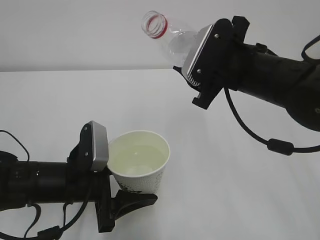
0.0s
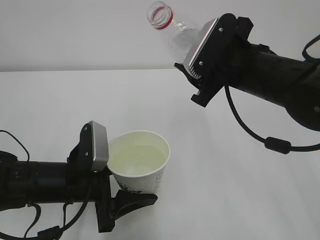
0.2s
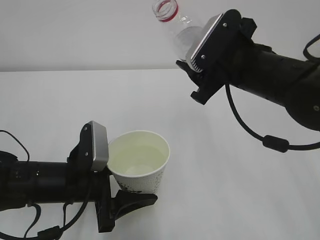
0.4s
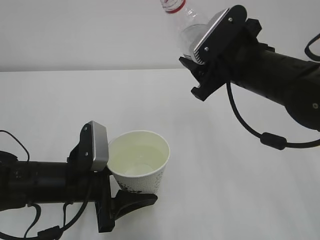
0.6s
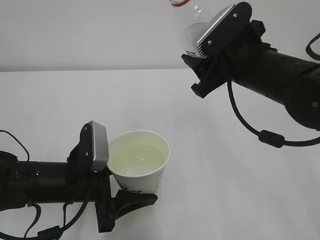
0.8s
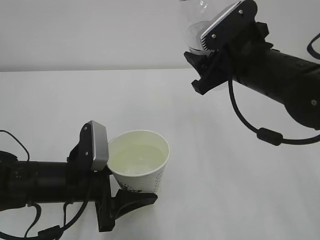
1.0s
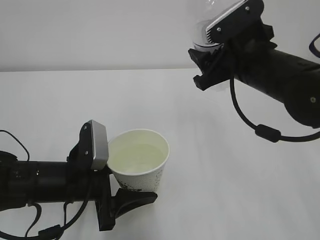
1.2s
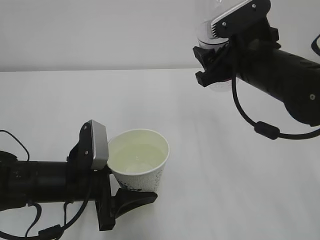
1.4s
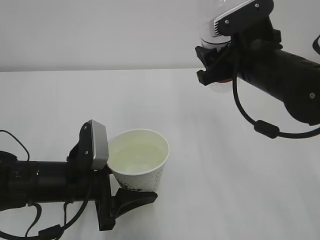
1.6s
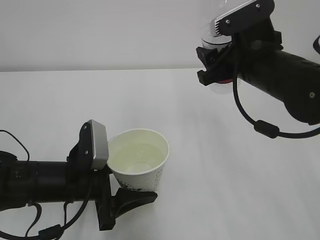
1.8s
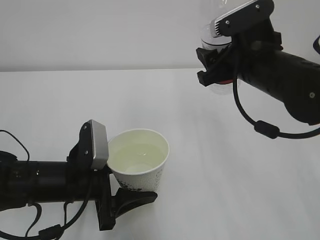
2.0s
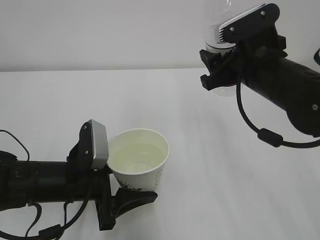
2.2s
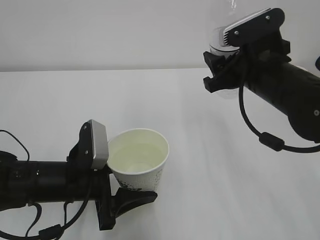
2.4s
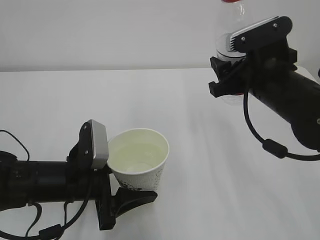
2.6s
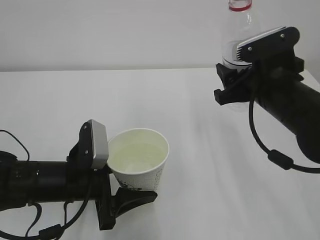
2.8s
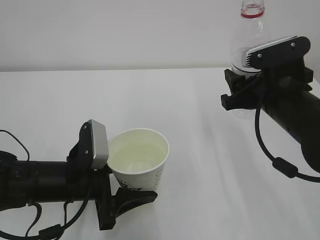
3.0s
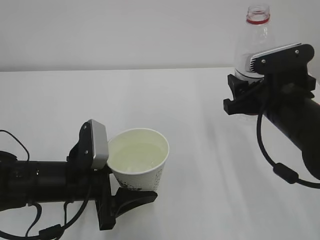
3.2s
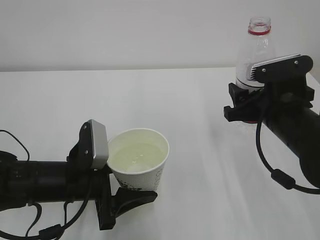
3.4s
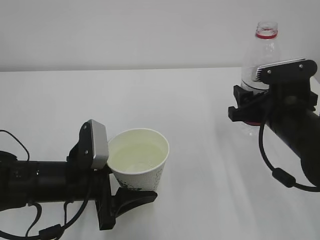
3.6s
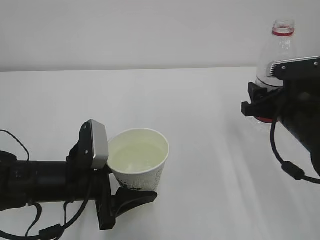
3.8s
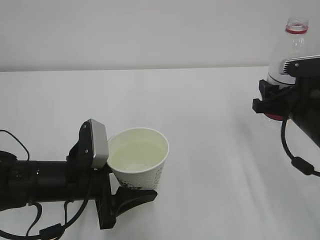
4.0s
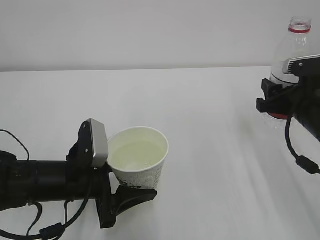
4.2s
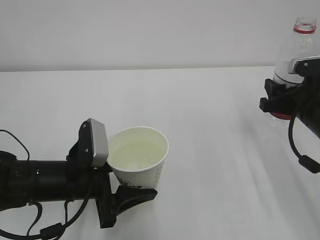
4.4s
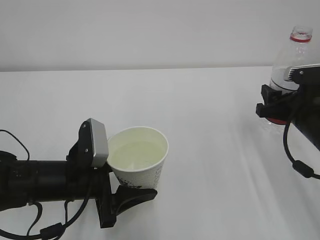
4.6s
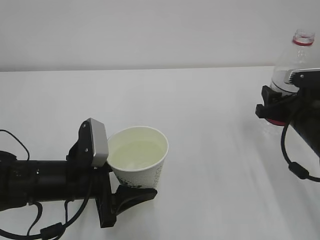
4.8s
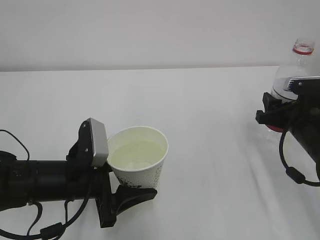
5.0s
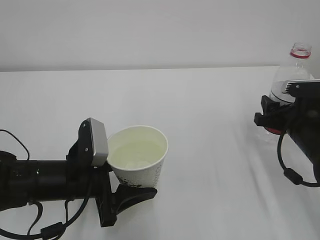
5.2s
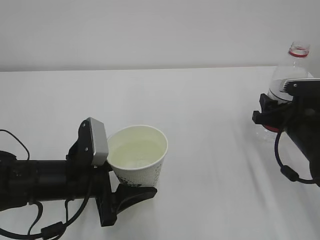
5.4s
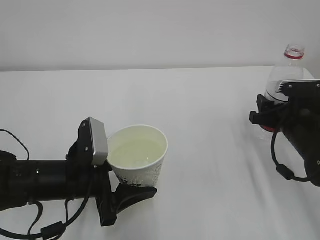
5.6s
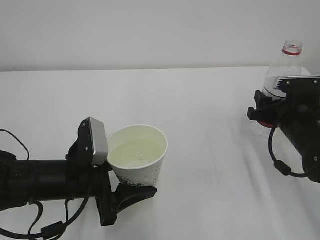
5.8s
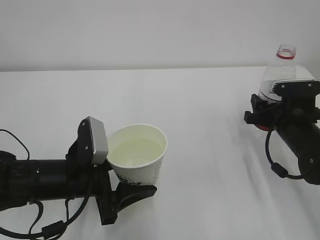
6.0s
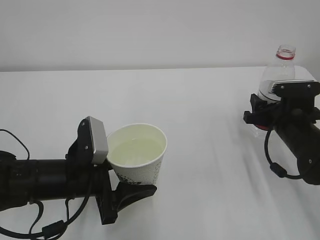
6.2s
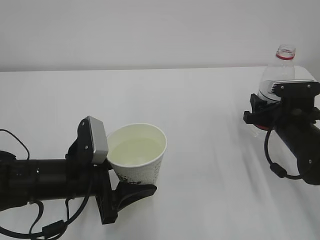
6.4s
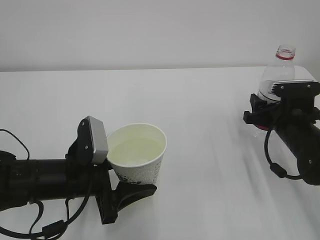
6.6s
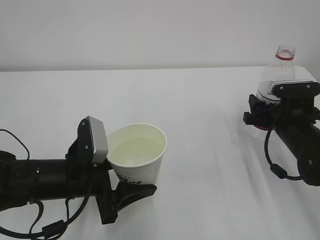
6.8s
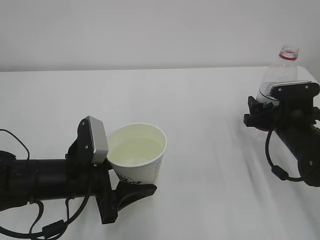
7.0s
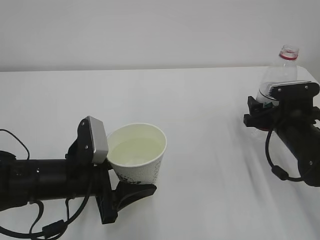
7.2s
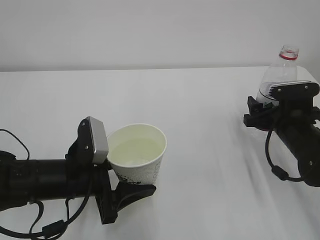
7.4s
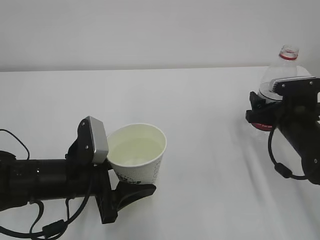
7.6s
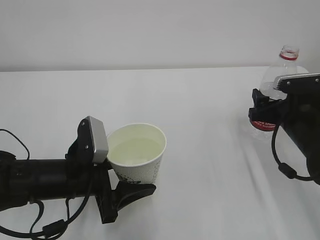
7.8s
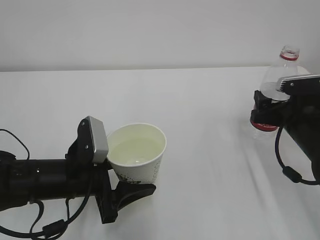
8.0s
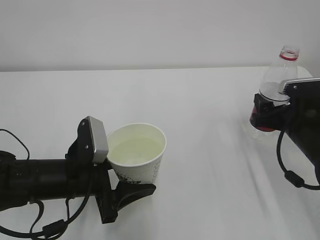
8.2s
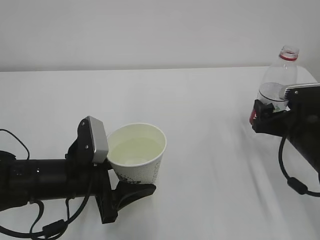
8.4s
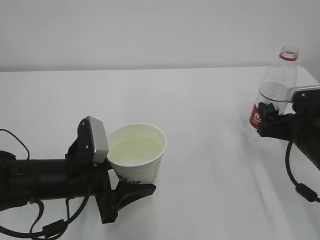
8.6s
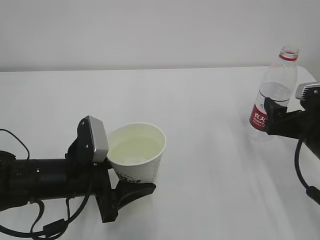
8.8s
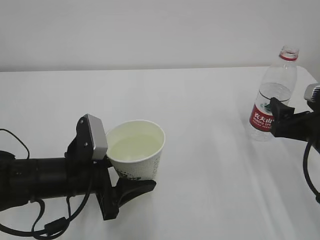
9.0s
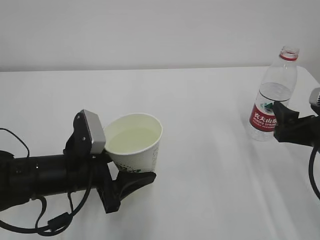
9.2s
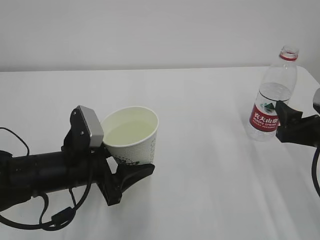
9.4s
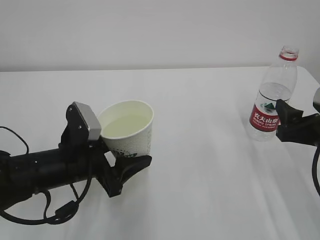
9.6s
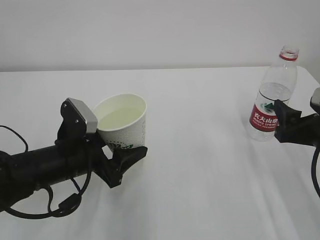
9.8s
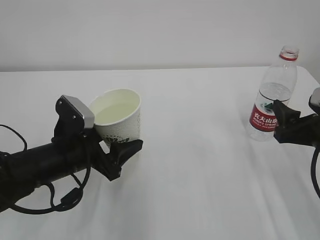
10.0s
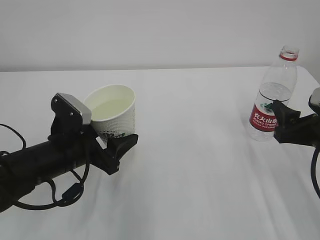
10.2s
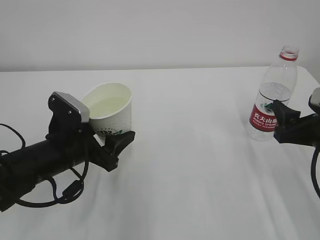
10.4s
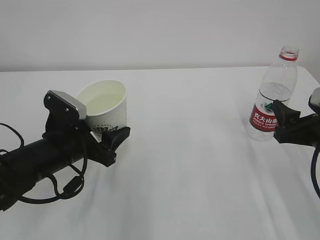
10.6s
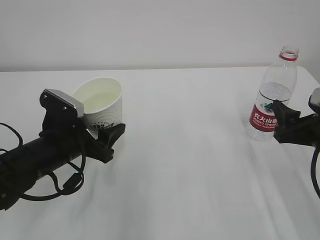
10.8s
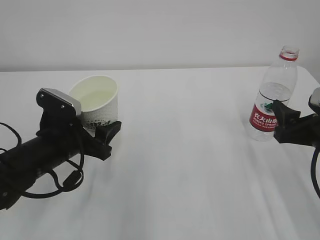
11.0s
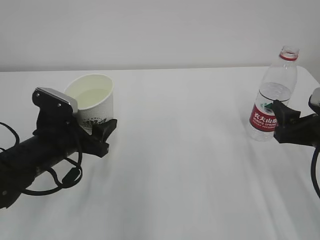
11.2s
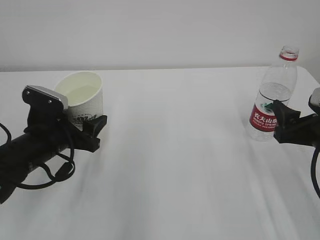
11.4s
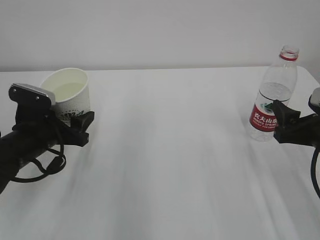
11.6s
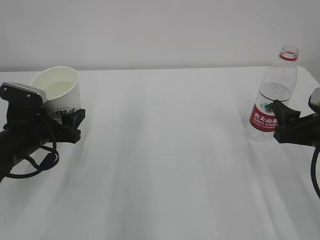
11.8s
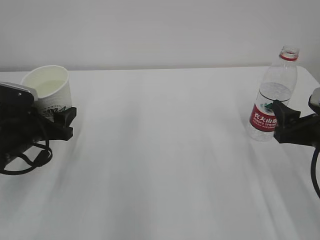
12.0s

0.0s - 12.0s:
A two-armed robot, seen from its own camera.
1.6s - 3.0s: The right gripper shifts by about 5 cm.
3.0s - 4.4s: The right gripper shifts approximately 5 cm to the right.
4.4s - 6.0s: The right gripper shifts approximately 5 cm downward.
6.0s - 7.6s: The right gripper opens up.
7.6s - 9.0s: The right gripper travels backward by roughly 5 cm.
10.4s - 12.0s: The left gripper moves to the left, roughly 10 cm.

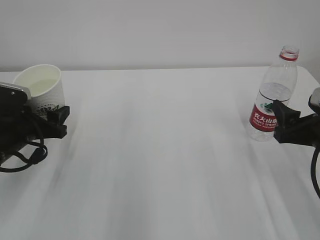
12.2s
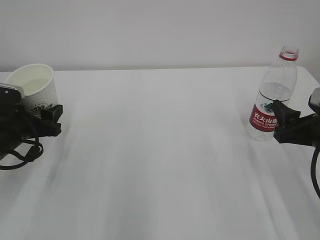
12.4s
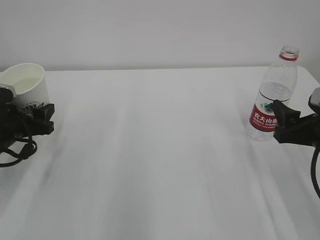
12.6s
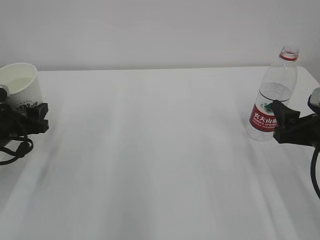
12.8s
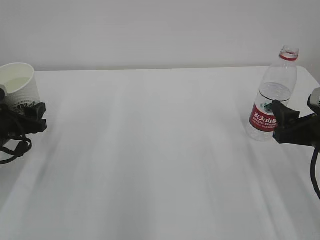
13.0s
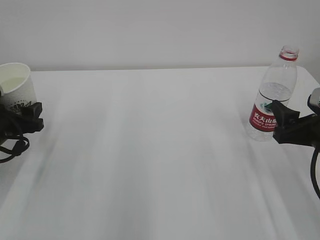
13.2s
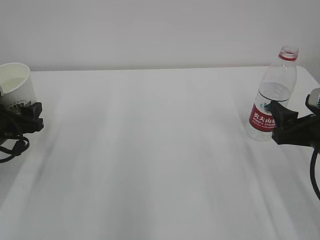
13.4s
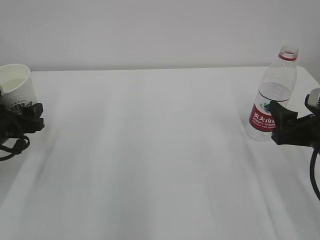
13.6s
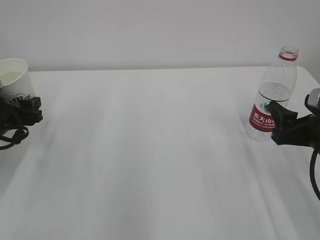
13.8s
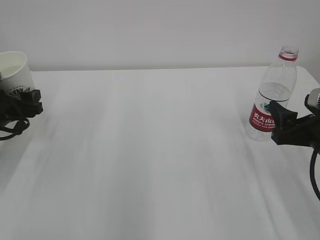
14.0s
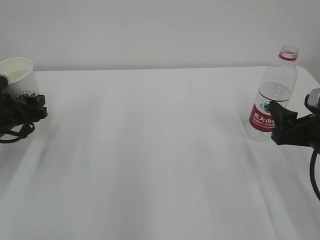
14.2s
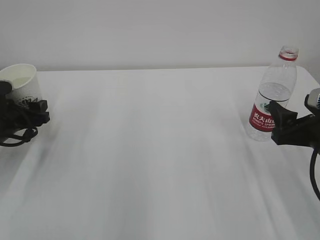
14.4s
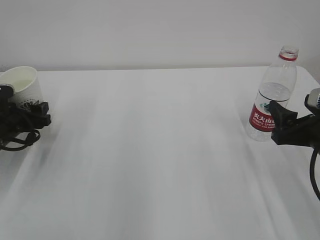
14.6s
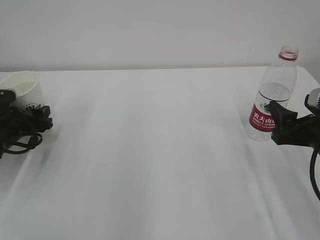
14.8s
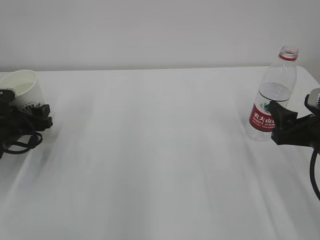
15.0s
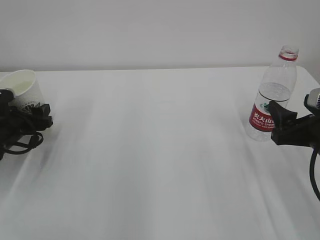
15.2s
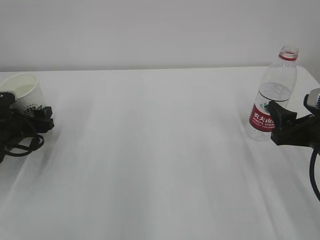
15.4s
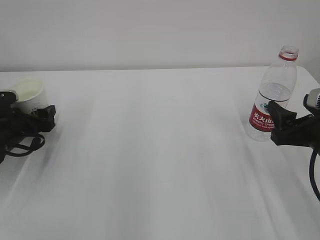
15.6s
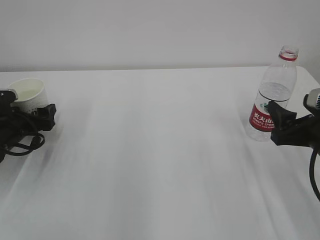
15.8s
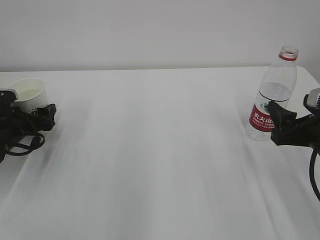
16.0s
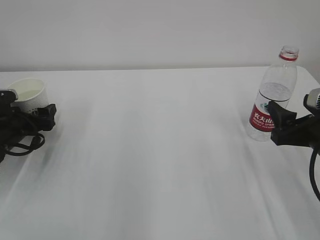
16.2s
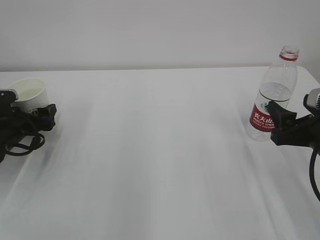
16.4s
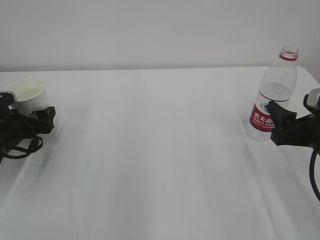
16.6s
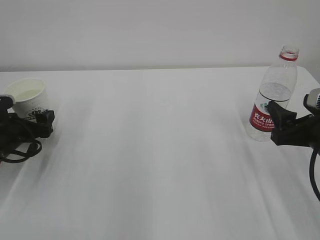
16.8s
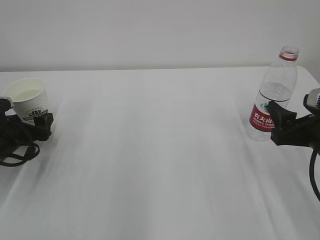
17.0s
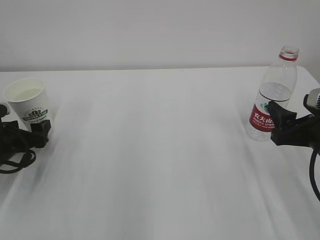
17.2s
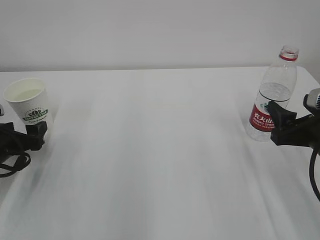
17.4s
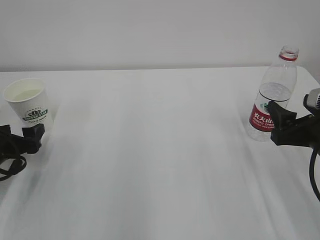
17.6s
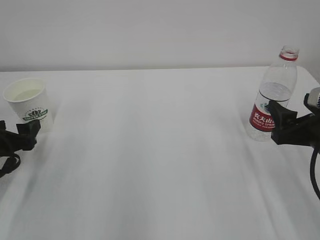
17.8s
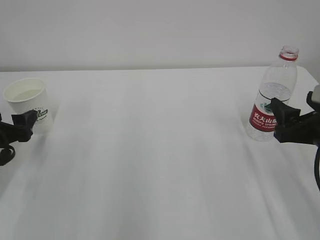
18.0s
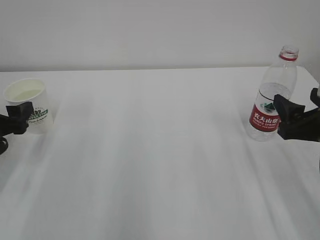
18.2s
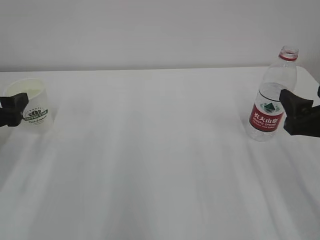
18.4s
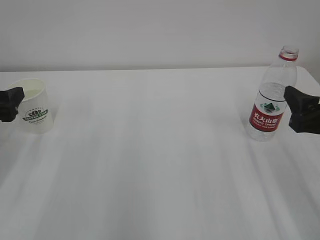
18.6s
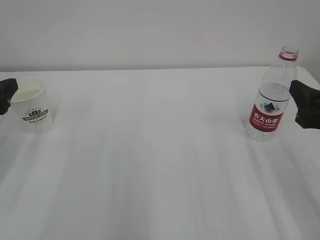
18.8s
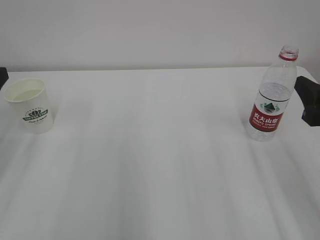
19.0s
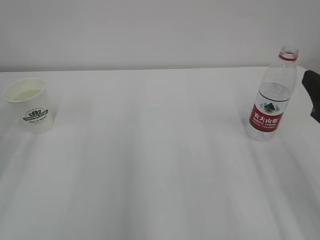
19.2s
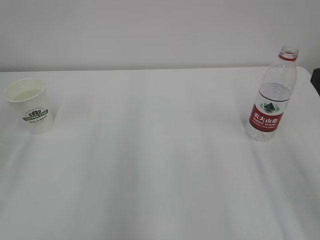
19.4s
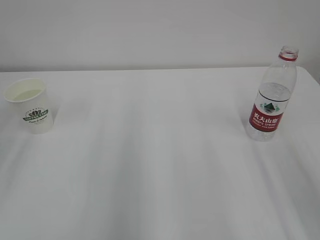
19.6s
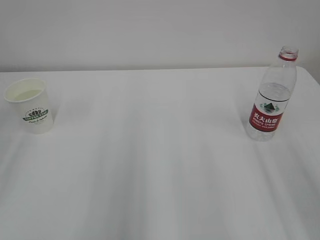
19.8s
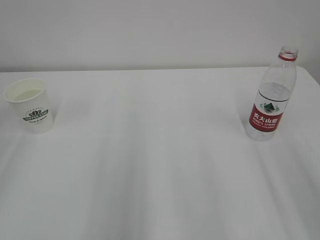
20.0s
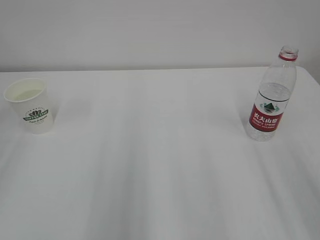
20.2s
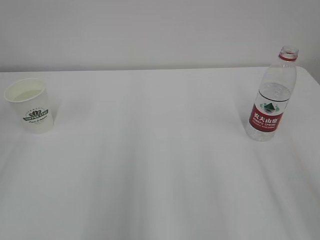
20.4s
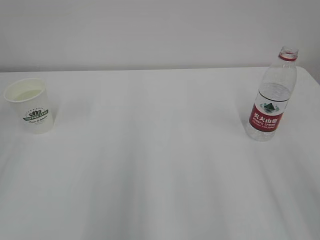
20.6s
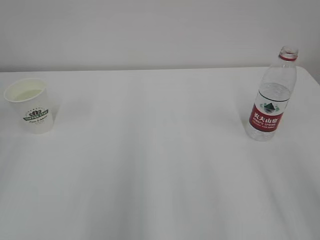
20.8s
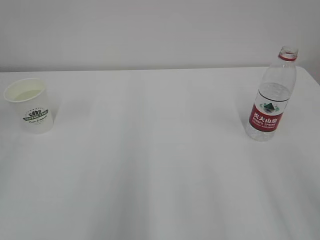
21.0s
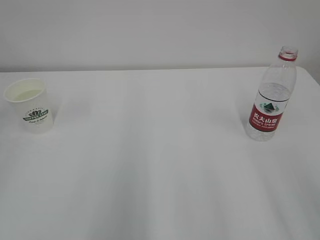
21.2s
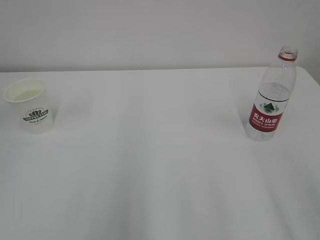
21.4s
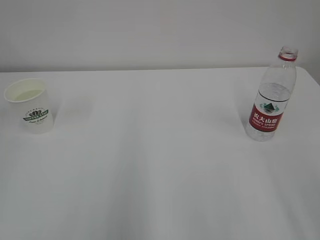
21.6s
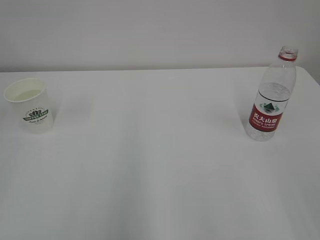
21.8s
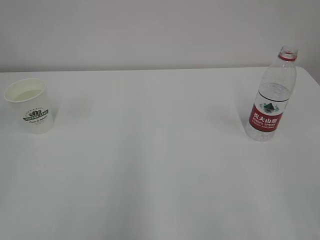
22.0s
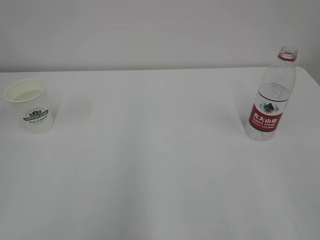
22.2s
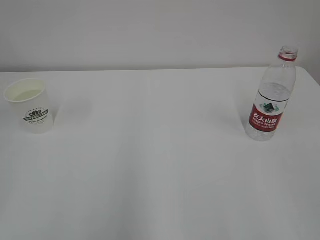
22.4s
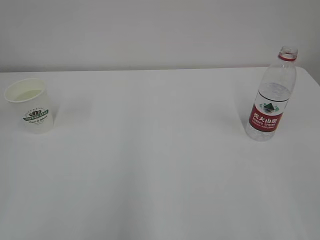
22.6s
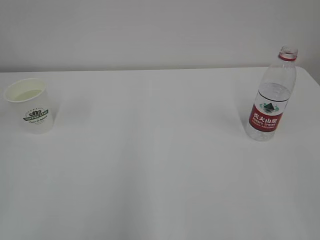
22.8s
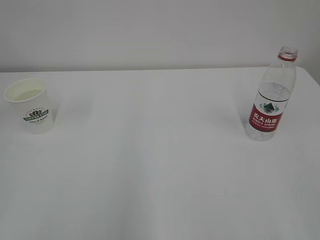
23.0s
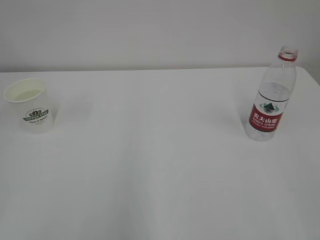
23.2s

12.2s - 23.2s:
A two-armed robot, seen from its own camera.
12.2s - 13.8s: The left gripper moves to the left, roughly 5 cm.
13.8s - 15.4s: The left gripper ends up some 5 cm from where it was.
15.4s - 17.0s: The left gripper opens its fingers.
17.0s - 18.4s: The left gripper heads upward and backward, covering approximately 10 cm.
18.4s - 20.0s: The right gripper travels backward and upward by approximately 15 cm; the left gripper goes about 20 cm upward and backward.
